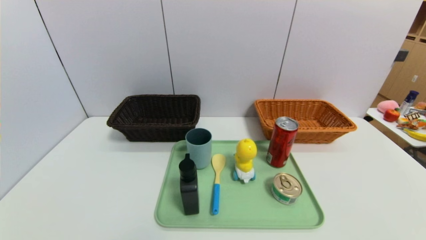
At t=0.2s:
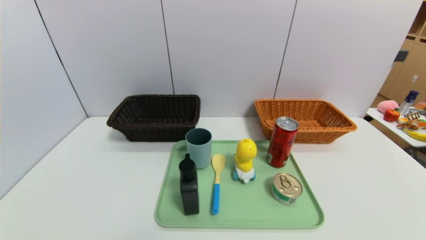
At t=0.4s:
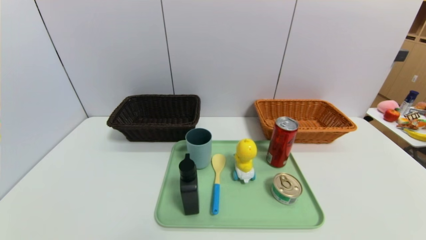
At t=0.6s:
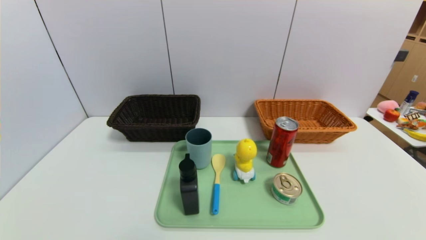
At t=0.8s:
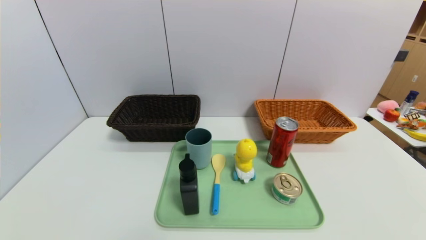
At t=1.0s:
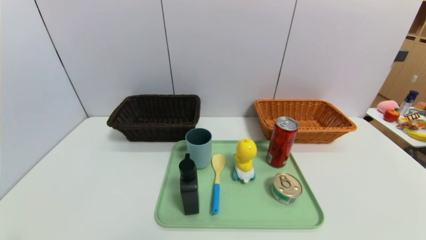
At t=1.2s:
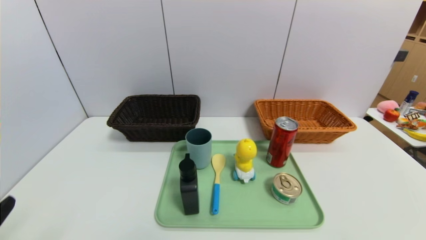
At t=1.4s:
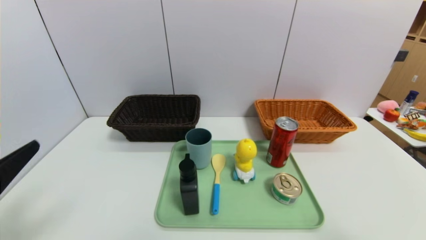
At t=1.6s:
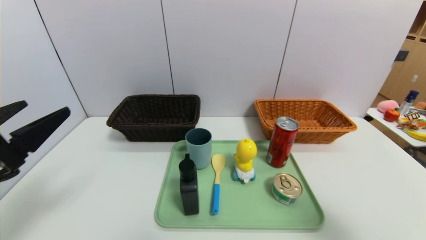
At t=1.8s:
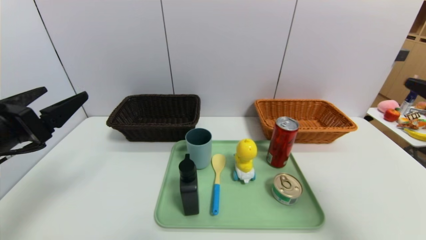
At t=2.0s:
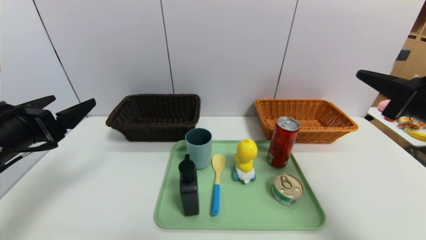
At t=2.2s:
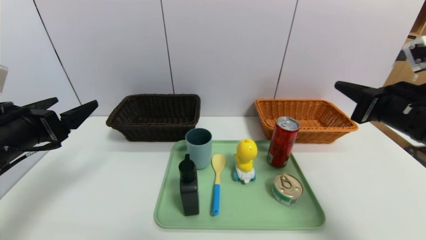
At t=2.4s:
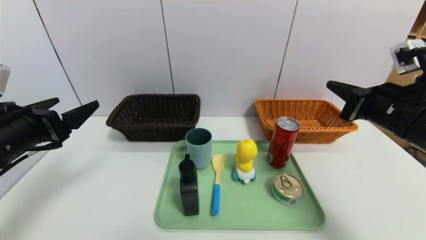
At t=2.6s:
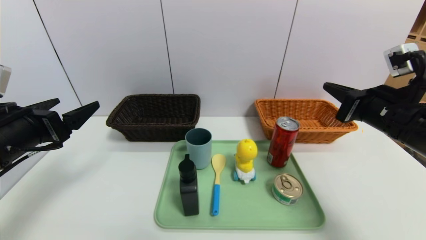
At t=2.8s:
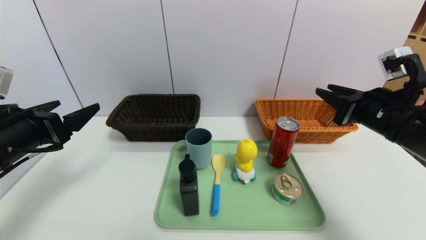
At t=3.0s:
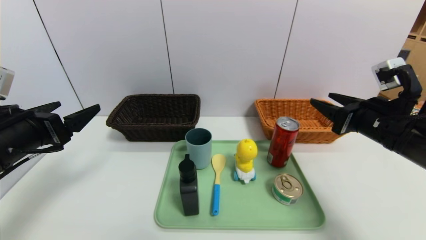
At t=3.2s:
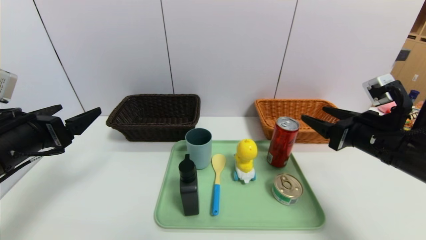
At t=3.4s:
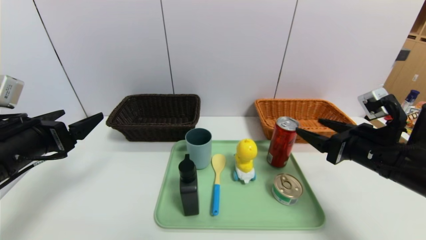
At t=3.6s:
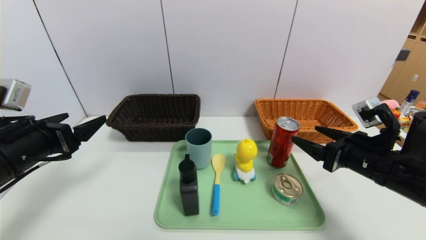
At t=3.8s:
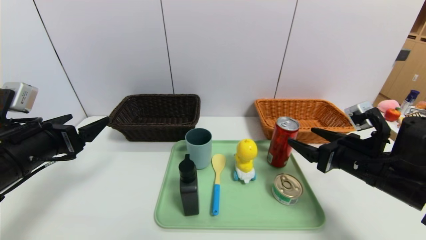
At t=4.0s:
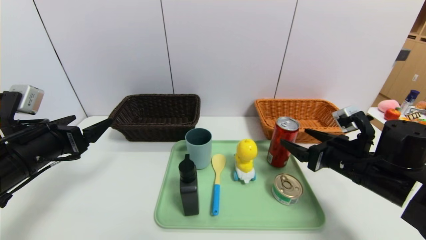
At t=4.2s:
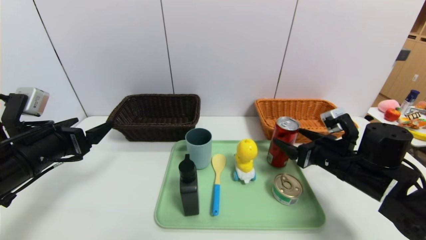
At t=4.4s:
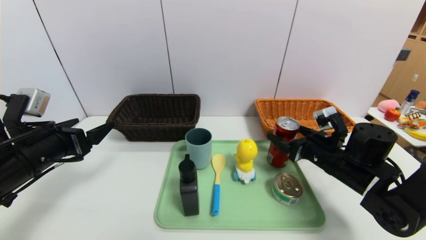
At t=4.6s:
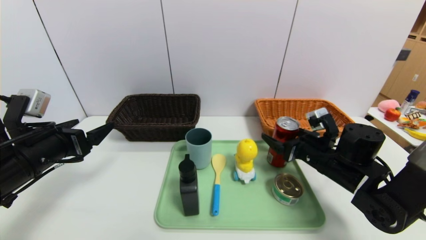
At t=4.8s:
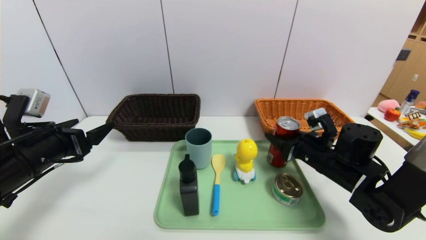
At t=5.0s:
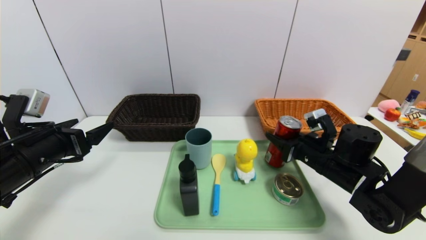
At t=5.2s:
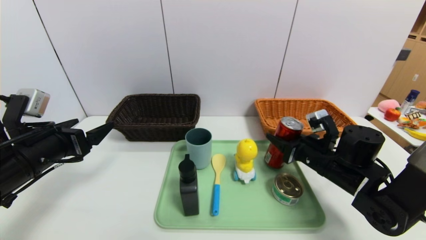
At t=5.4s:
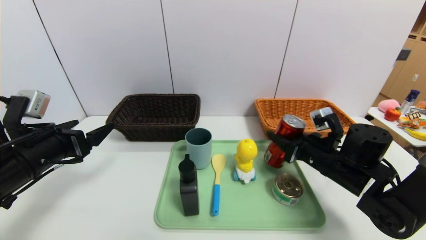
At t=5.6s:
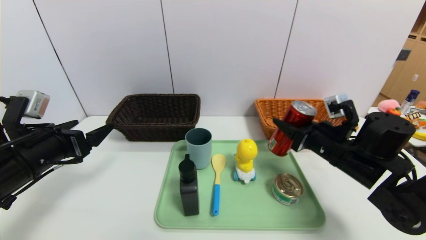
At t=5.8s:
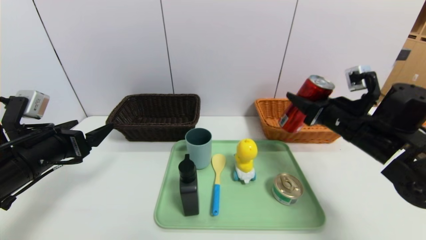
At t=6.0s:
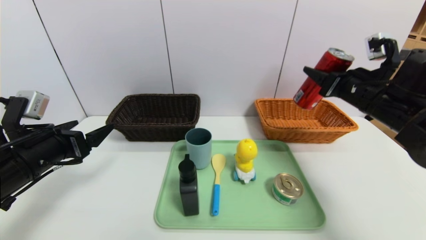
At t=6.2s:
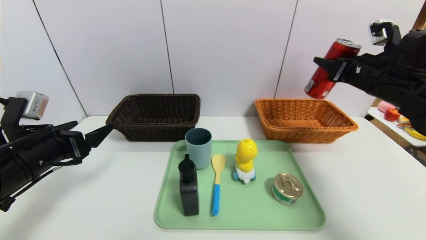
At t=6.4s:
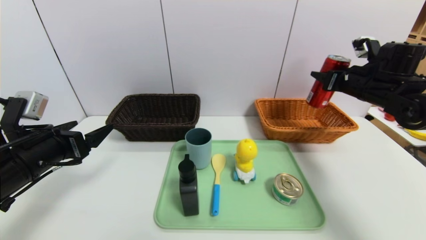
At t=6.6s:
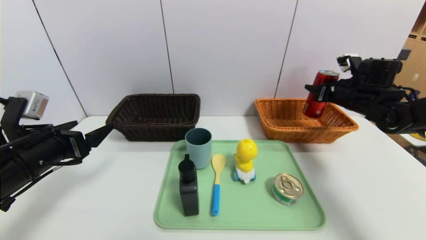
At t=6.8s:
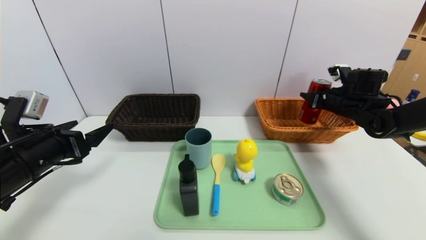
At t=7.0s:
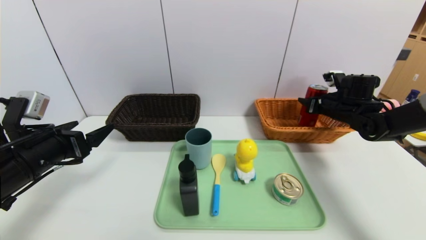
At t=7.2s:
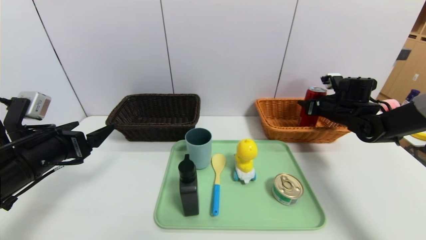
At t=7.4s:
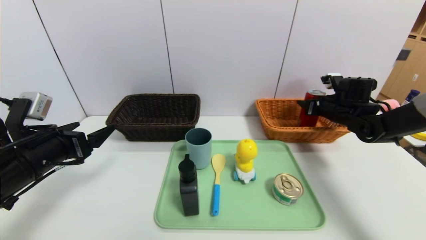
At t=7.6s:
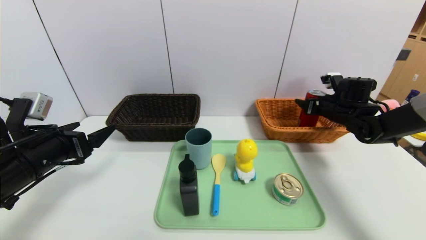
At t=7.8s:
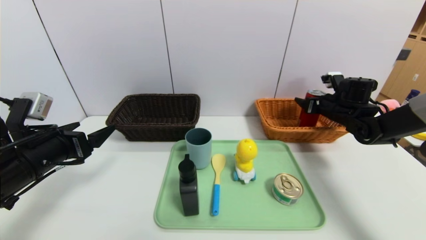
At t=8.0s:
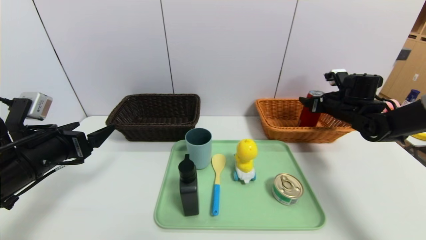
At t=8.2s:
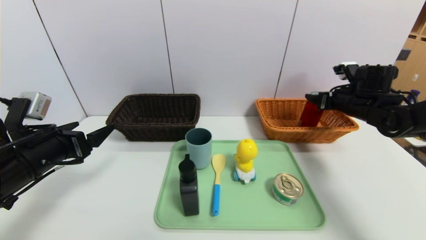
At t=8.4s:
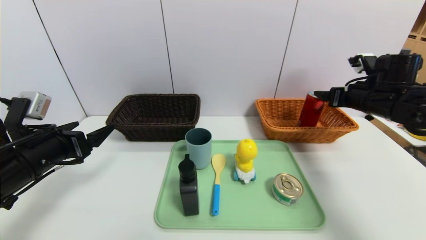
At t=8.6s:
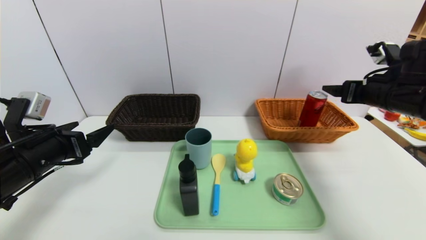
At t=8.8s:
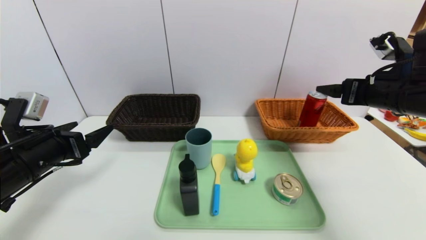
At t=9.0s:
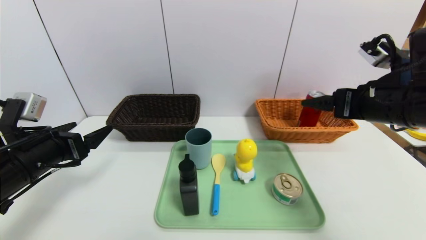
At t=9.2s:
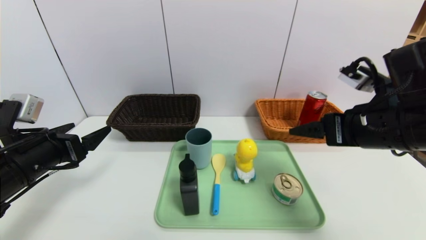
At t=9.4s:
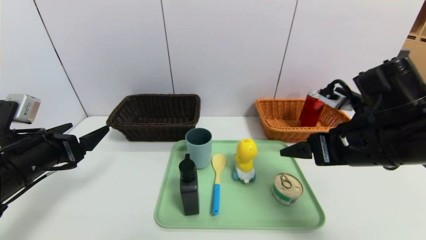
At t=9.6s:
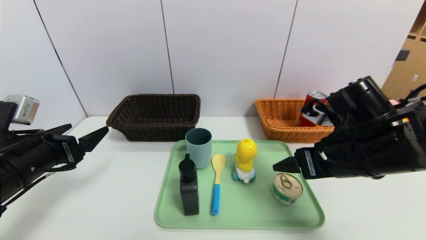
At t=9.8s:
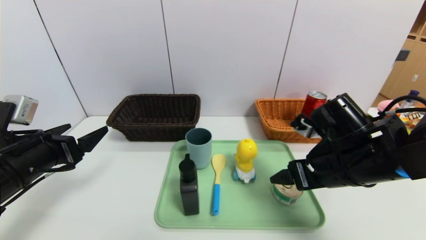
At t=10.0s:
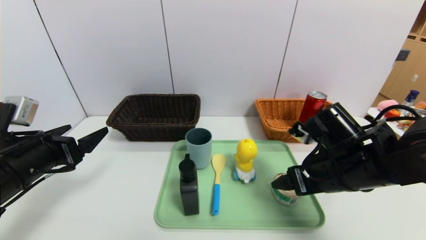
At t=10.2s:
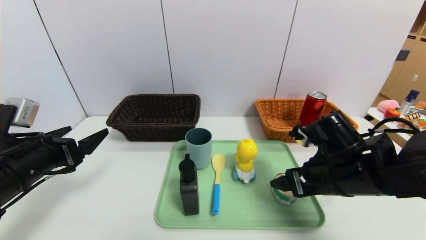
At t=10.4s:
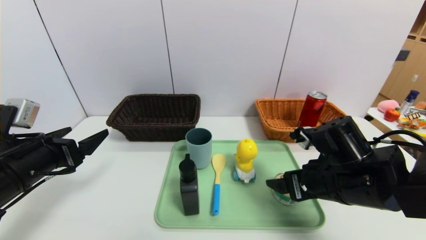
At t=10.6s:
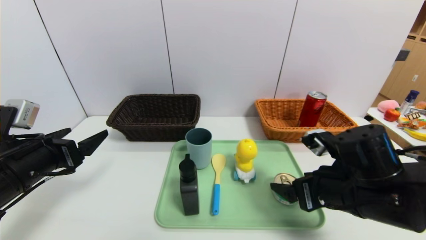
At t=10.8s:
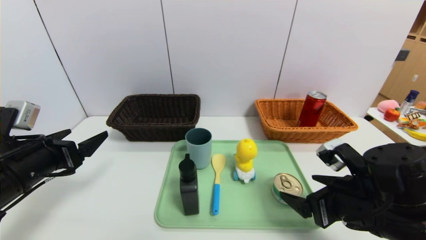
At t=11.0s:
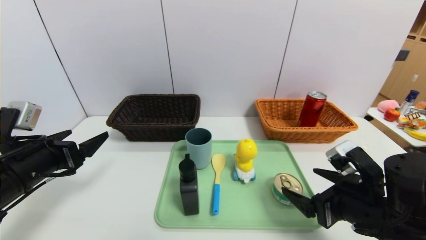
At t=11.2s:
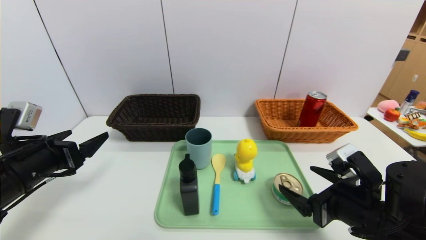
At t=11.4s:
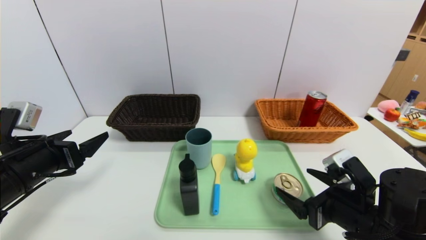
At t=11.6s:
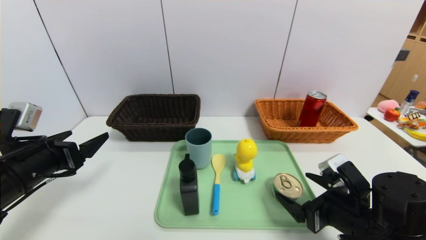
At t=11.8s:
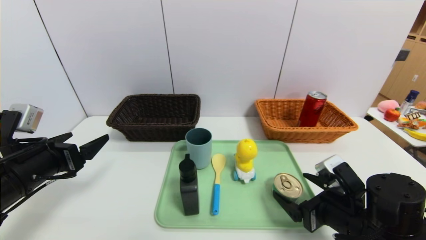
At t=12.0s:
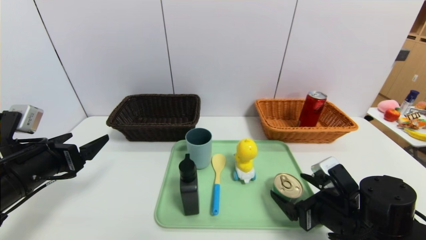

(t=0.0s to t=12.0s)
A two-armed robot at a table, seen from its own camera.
Task of the whole recording: place the food in the right basket with the right gripper, and place the non food items in the left basket with the left gripper.
Step, t=0.0s - t=7.6s: Grasp the canned cola and put it in the right basket.
t=0.0s - t=1.6s: The two grippers go some 25 cm upward and forward.
t=1.6s - t=3.0s: The right gripper shifts roughly 15 cm forward, and opens its fingers, while the left gripper goes about 5 cm forward.
t=3.0s - t=4.4s: The right gripper is displaced downward by approximately 10 cm, and opens.
t=4.4s - t=6.0s: The right gripper travels upward by approximately 15 cm, and closes up.
t=6.0s - t=7.6s: The right gripper travels forward and downward by roughly 15 cm.
t=7.6s - t=9.0s: The right gripper heads backward and upward, covering approximately 25 cm.
t=9.0s - t=10.4s: The right gripper shifts approximately 15 cm downward and to the left.
t=10.4s - t=12.0s: The right gripper heads downward, covering approximately 5 cm.

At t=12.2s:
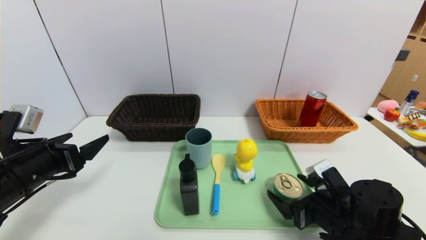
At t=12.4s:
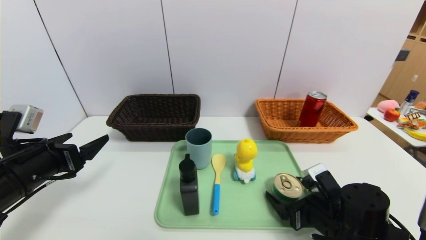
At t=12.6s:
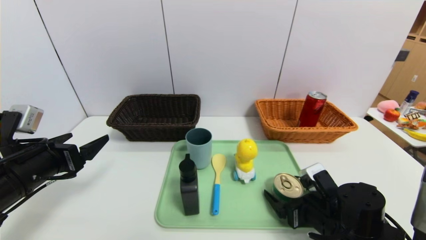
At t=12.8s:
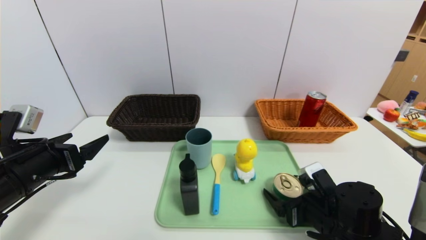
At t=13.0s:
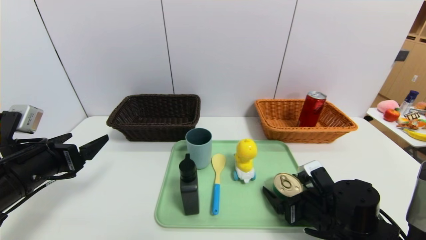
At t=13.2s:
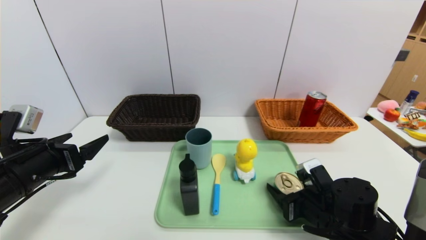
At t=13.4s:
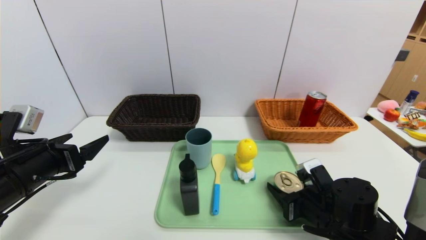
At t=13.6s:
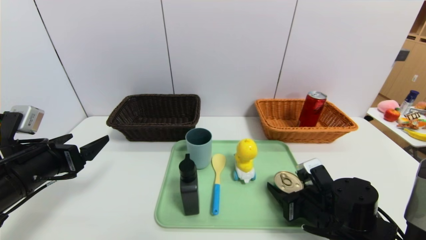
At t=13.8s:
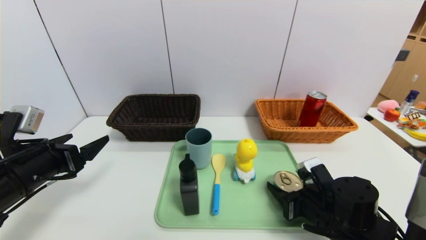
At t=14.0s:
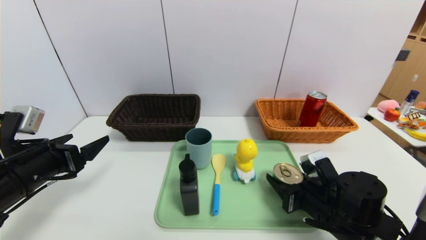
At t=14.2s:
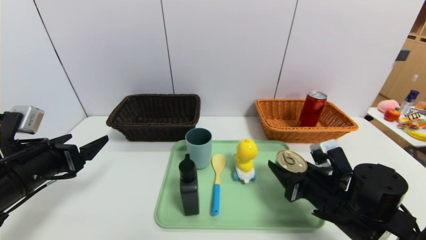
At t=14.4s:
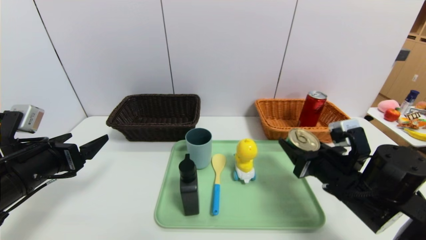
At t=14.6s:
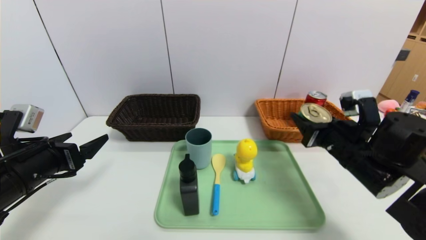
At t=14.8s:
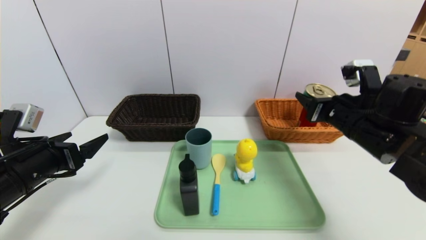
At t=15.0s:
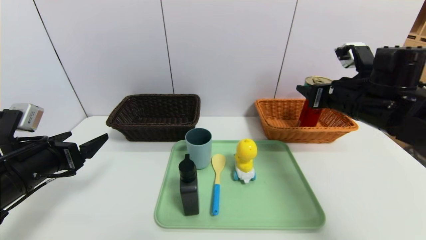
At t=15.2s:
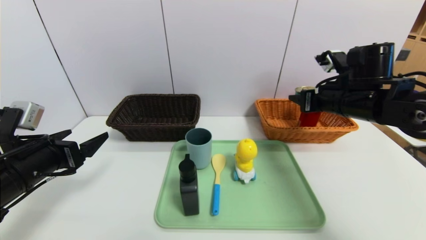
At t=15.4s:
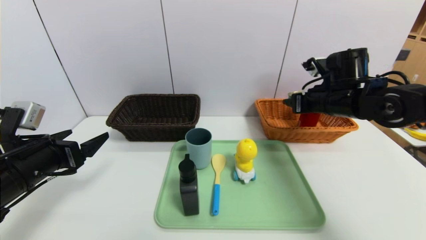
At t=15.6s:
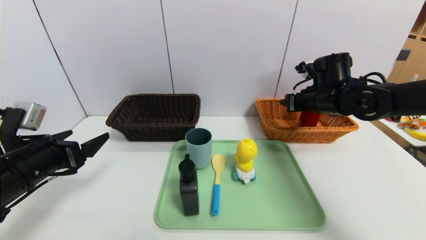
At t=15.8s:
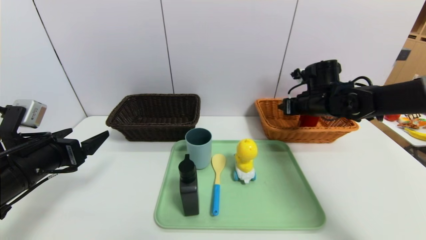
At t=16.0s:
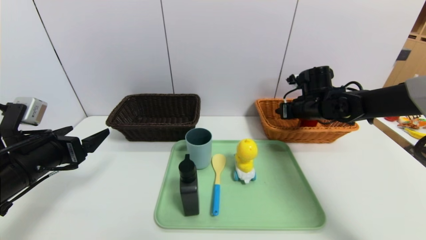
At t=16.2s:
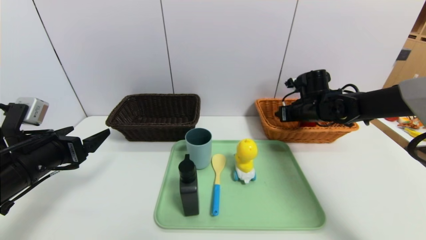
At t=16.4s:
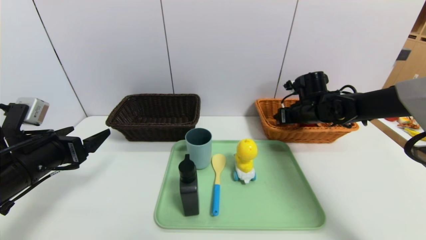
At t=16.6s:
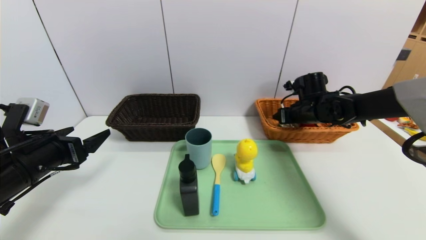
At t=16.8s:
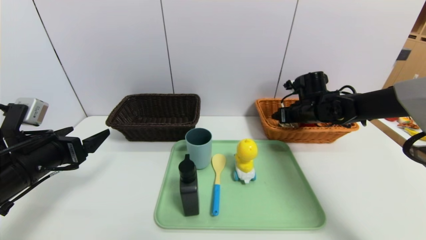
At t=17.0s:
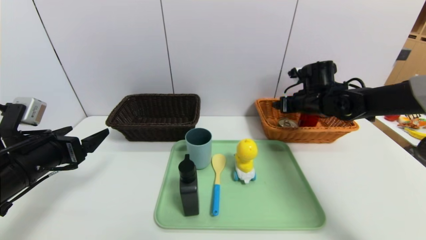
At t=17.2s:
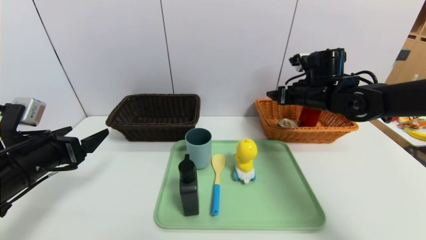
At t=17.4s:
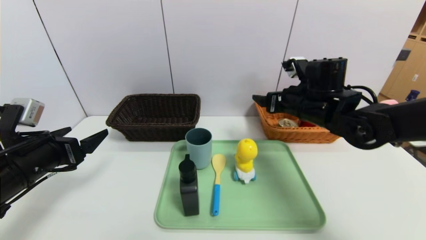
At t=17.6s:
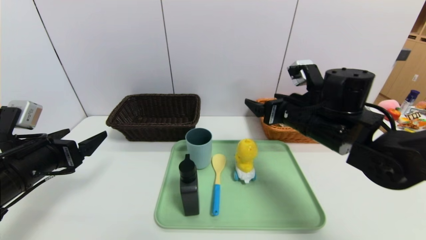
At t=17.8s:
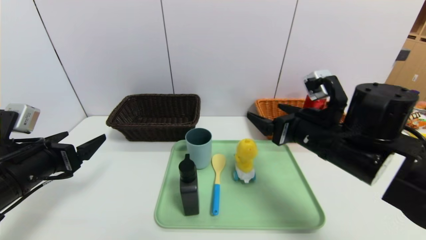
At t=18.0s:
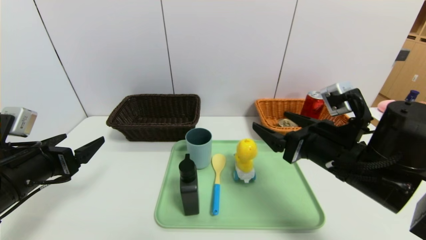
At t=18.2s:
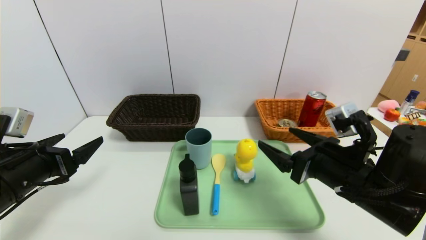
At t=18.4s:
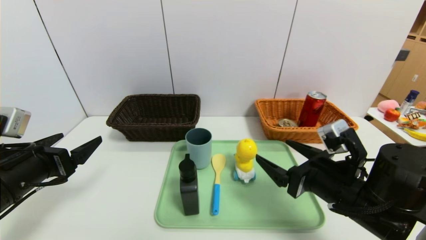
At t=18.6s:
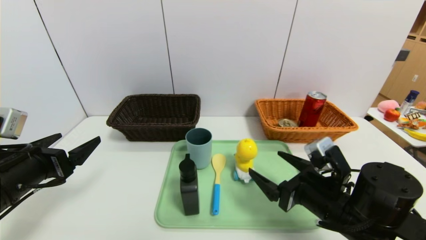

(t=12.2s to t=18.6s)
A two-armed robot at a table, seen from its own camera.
Task of the whole recording: place the food in the right basket with the right gripper, and place the non food items in the left basket with the left gripper.
Step, t=12.2s - t=16.6s: Grasp the can and put it in the right basket.
t=12.2s - t=13.8s: The right gripper closes its fingers.
t=13.8s - t=15.4s: The right gripper travels upward and forward by some 25 cm.
t=15.4s - t=17.0s: The right gripper goes roughly 5 cm forward.
t=17.0s - t=18.6s: The right gripper goes about 25 cm backward.
